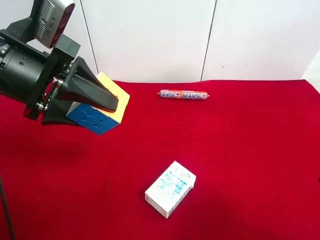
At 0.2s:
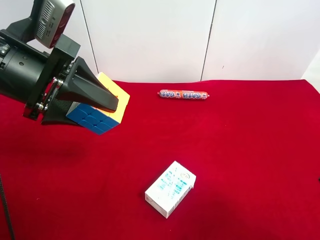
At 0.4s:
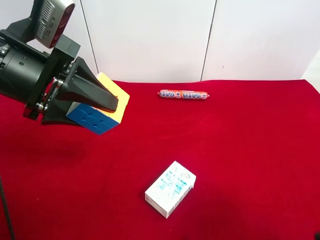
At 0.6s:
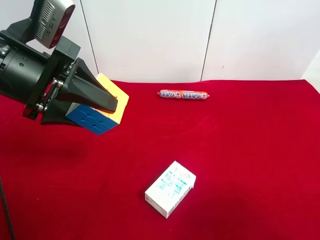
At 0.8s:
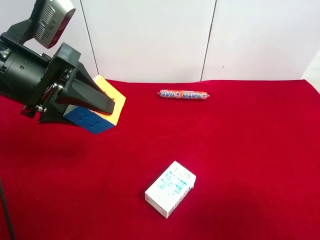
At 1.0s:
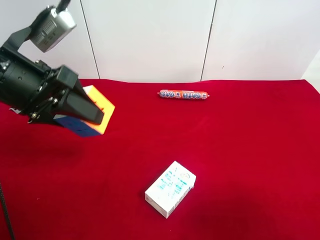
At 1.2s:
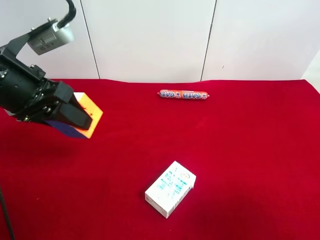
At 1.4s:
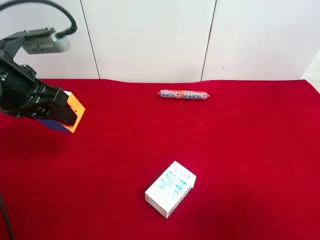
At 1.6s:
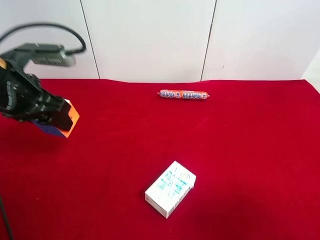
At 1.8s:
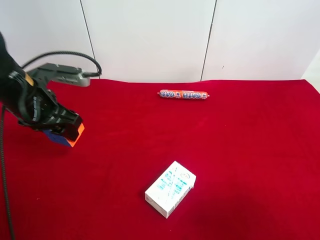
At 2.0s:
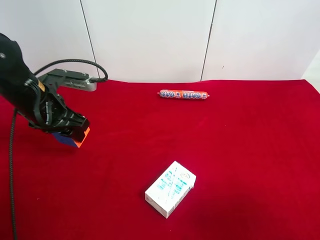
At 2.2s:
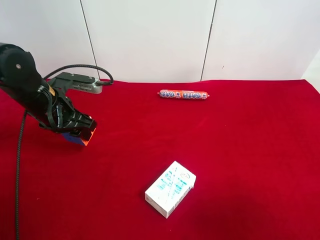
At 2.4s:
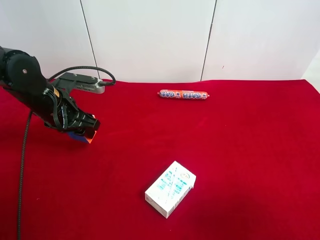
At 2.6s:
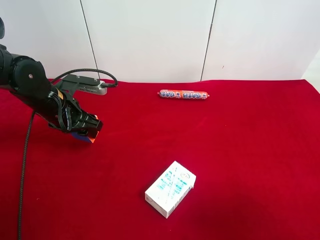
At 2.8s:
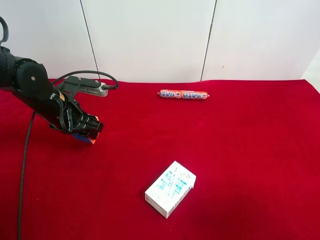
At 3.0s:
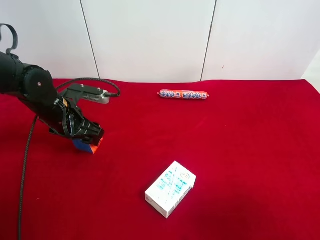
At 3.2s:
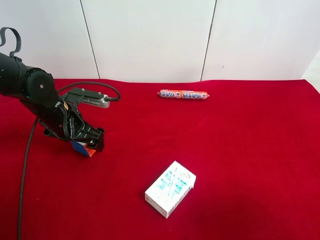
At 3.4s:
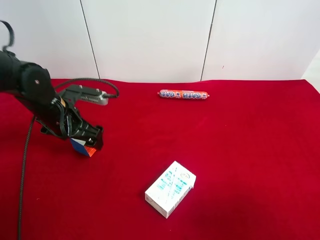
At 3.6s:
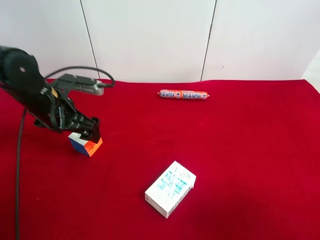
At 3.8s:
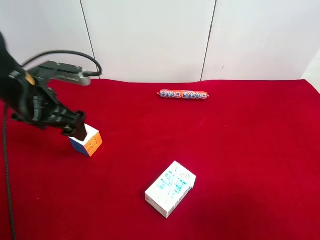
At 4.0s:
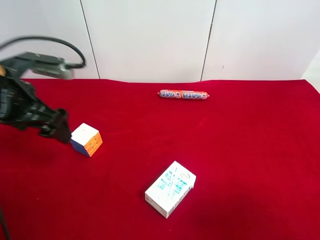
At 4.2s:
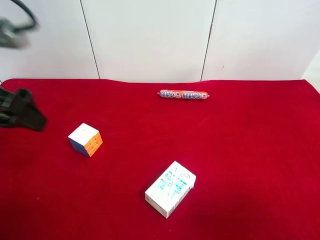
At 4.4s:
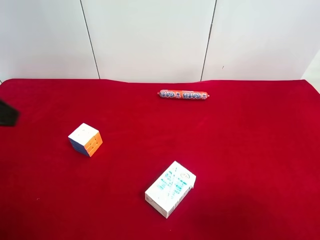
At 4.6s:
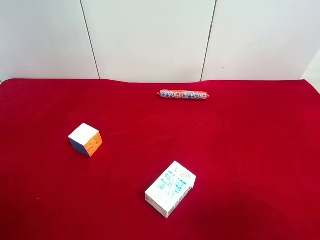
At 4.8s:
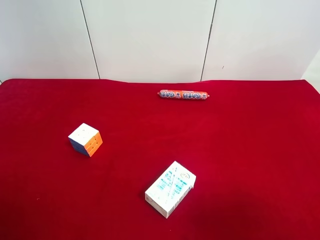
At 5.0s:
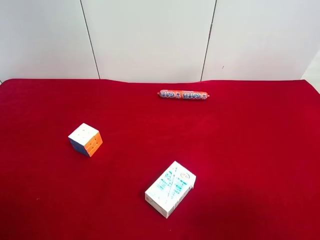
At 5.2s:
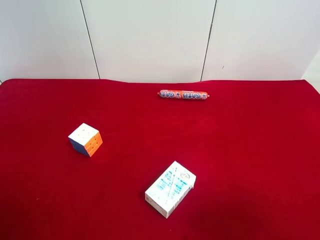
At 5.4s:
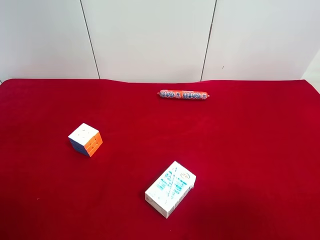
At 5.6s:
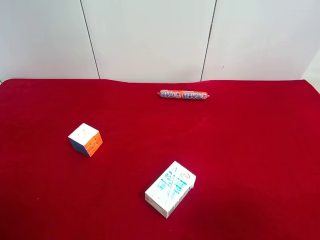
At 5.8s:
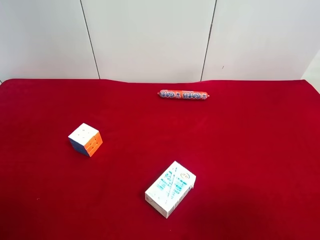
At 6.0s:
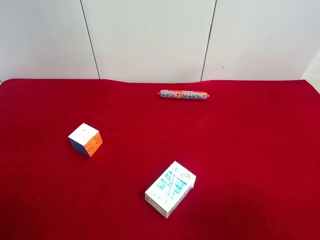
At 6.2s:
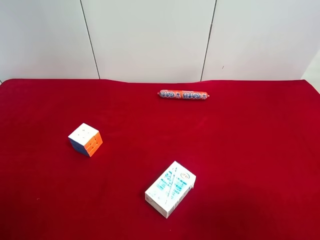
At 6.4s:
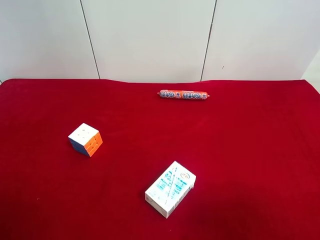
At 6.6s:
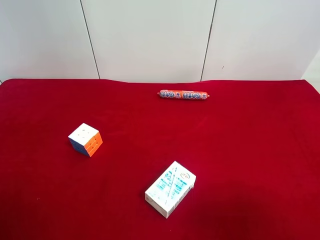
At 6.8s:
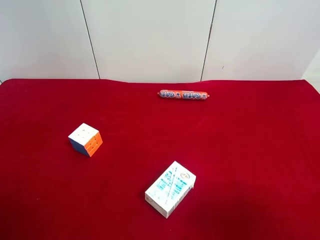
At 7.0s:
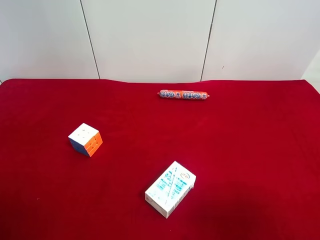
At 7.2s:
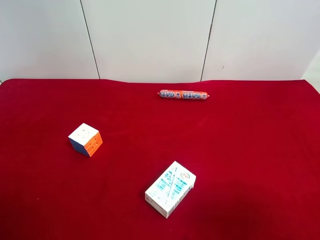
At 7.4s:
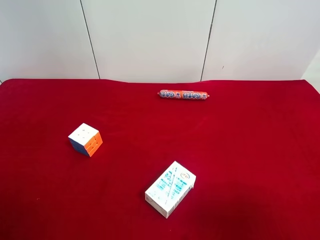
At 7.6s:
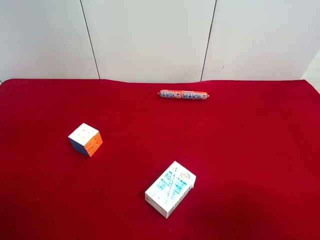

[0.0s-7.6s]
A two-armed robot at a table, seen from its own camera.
Task of the whole recording: use the right gripper to pick up the item and transfer it from the right gripper to the left gripper.
Step, 0.0s to 3.4s: The left gripper places Rubik's Cube on the left side of the table.
0.0s to 1.6s: The left gripper moves downward, some 5 cm.
1.6s to 3.0s: The left gripper shifts roughly 15 cm downward and forward.
3.0s to 4.6s: The left gripper travels backward and upward by about 30 cm, and opens up.
